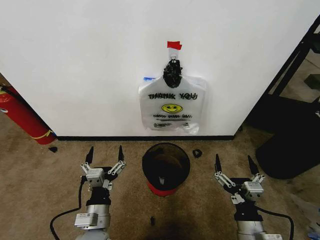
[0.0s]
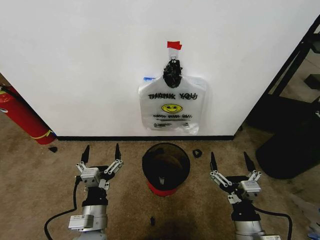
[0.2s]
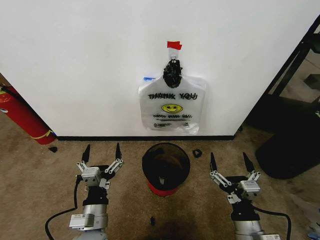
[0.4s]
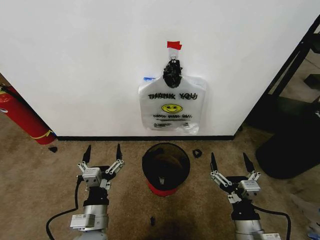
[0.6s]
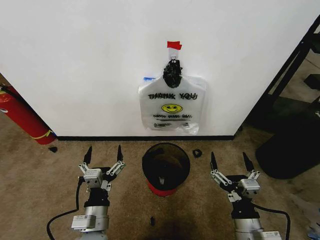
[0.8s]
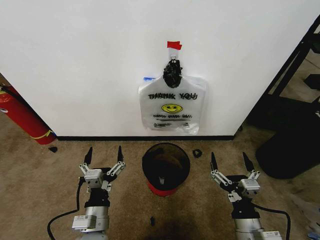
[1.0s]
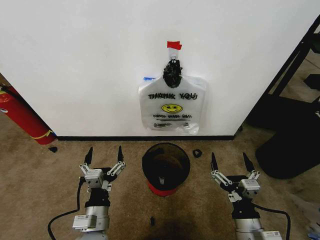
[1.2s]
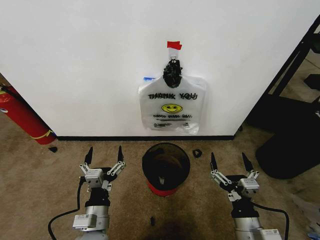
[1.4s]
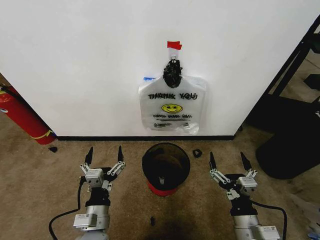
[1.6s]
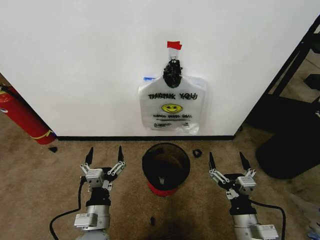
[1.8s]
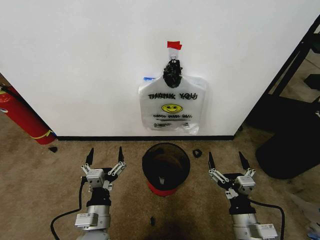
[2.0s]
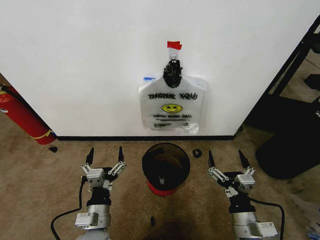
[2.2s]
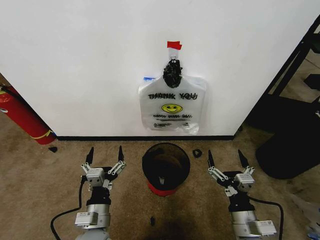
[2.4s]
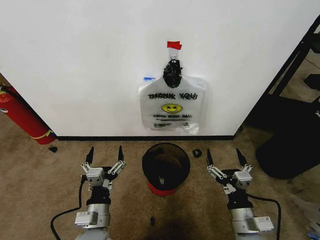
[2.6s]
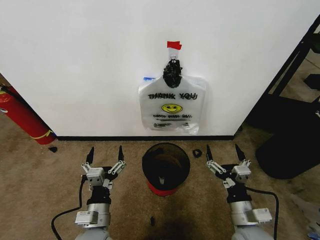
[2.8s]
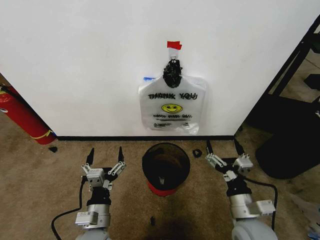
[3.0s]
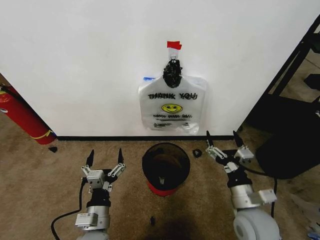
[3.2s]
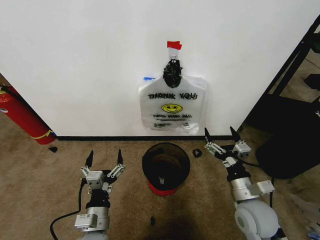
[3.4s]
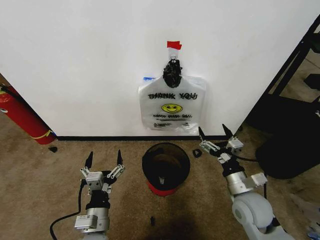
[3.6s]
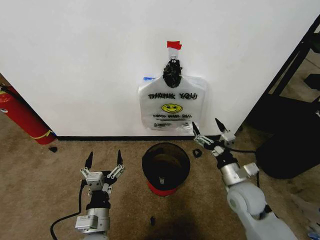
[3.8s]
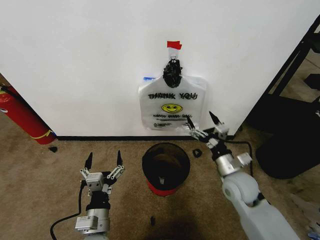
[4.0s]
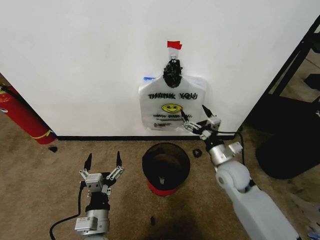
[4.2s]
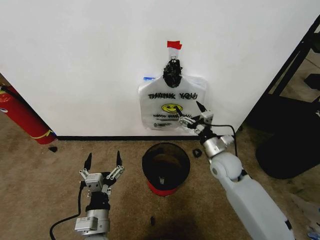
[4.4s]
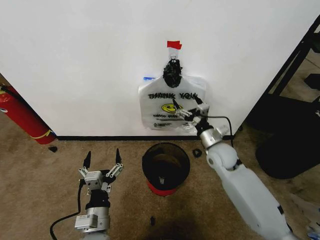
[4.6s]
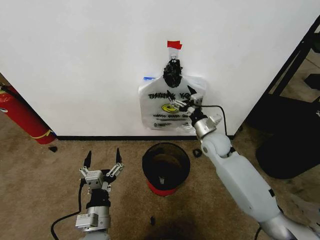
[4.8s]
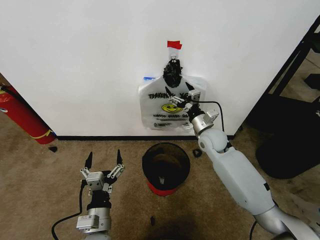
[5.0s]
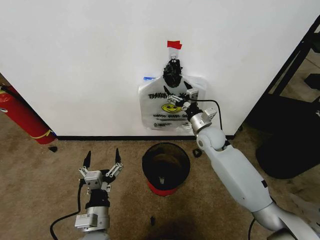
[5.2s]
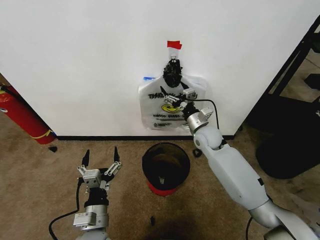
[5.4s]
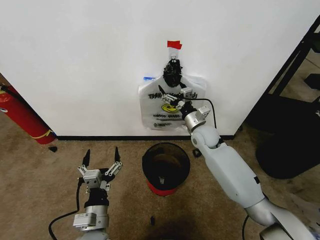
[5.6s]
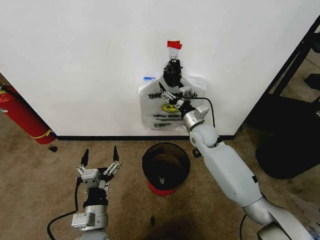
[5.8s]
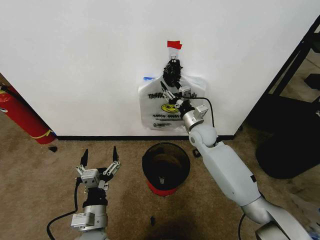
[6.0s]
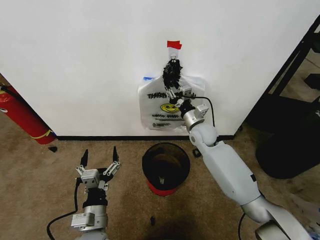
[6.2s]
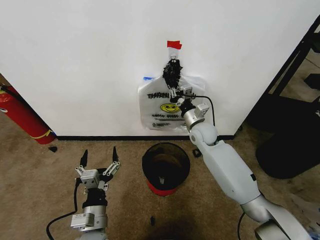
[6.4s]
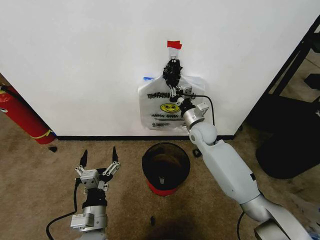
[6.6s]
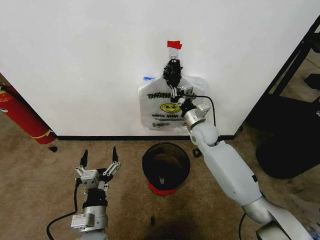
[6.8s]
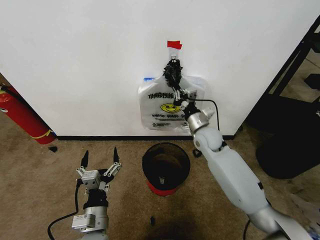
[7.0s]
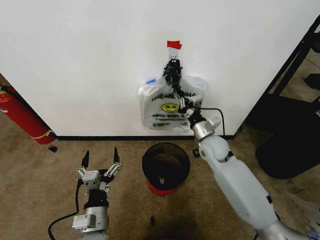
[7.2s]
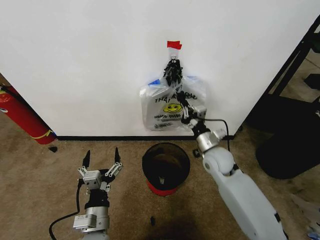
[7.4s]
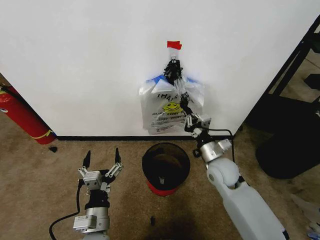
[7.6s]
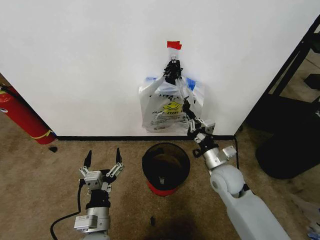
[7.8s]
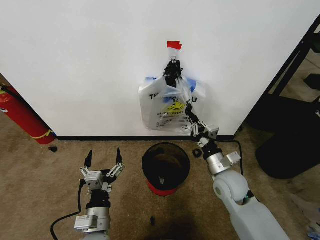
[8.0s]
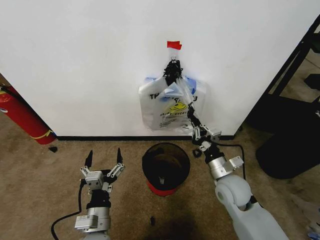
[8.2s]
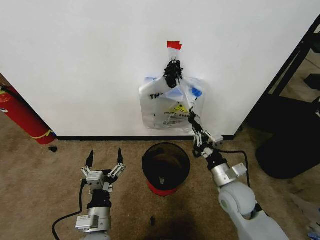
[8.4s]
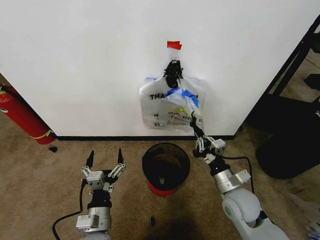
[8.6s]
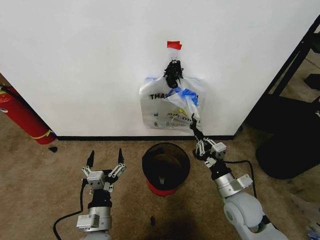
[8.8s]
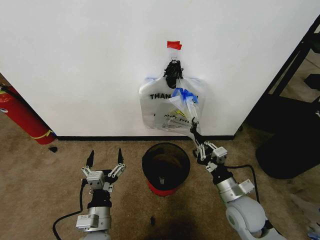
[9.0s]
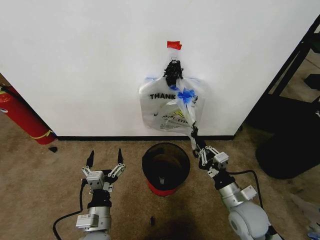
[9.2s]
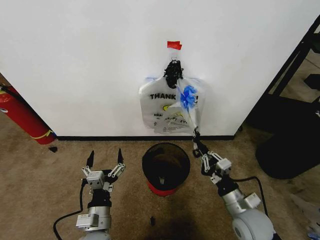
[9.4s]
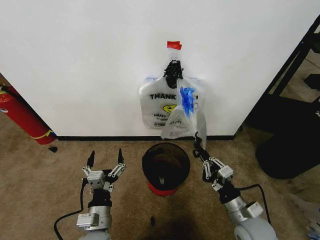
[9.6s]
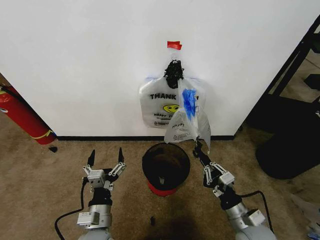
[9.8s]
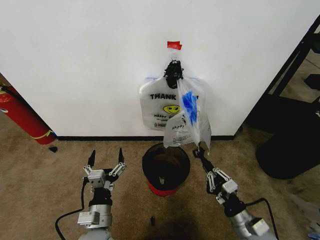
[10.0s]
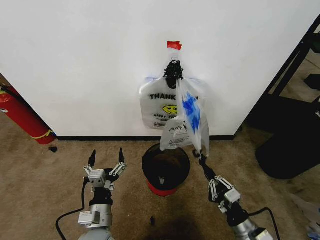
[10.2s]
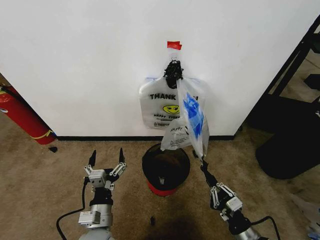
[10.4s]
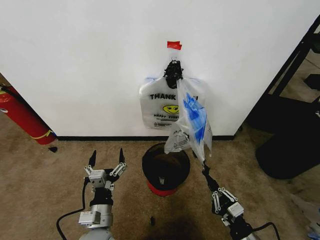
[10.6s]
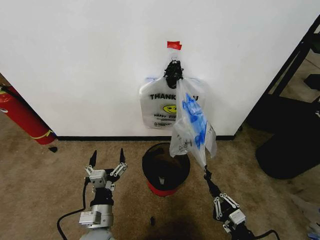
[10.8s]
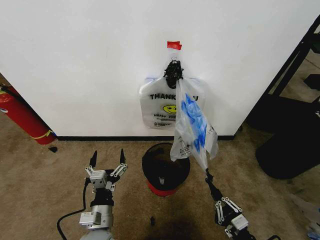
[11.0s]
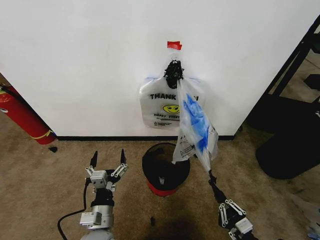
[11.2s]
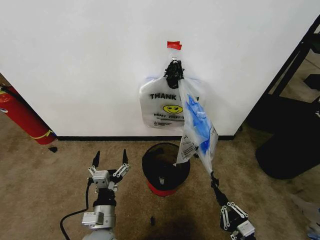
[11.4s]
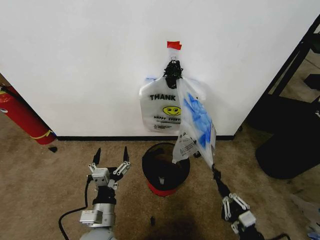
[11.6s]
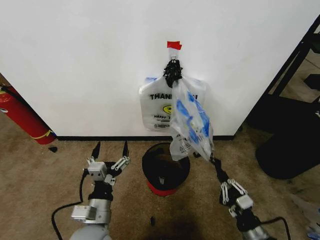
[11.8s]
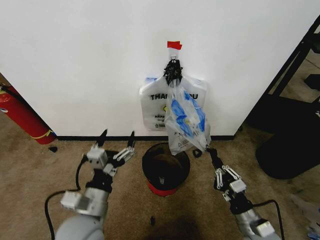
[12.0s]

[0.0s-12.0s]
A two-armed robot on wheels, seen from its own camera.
Task of the whole recording: Pick up the garbage bag from the wall and place it over the trash bin.
1.6s to 3.0s: The right gripper ends up about 5 cm from where it was.
3.0s to 4.4s: The right gripper moves forward, some 20 cm.
4.4s to 6.0s: The right gripper moves forward and to the left, roughly 10 cm, and closes up.
6.0s to 7.6s: The right gripper moves backward, roughly 10 cm, and closes.
7.6s to 9.0s: The right gripper is displaced backward by roughly 10 cm.
9.0s to 10.4s: The right gripper is displaced backward and downward by roughly 15 cm.
10.4s to 12.0s: The left gripper goes approximately 10 cm upward.

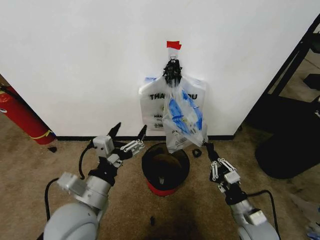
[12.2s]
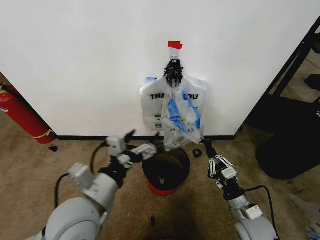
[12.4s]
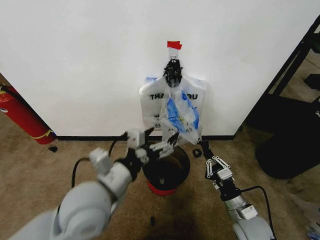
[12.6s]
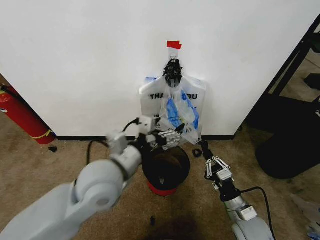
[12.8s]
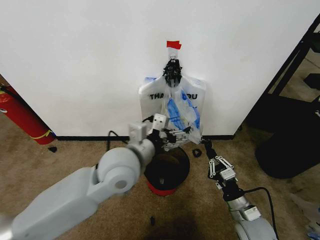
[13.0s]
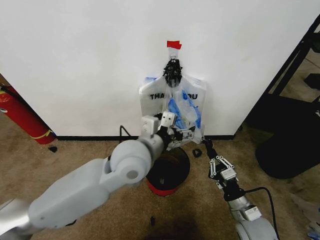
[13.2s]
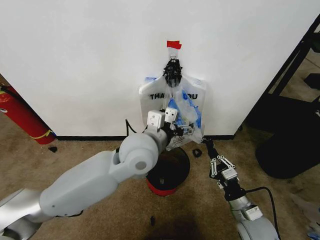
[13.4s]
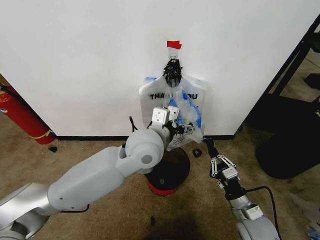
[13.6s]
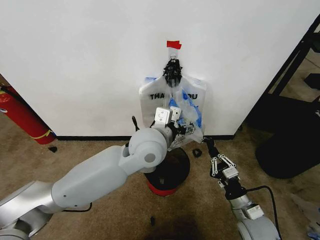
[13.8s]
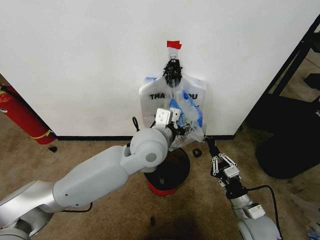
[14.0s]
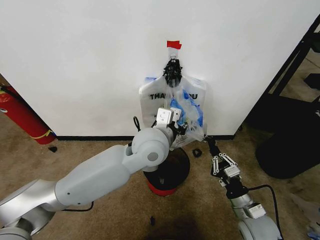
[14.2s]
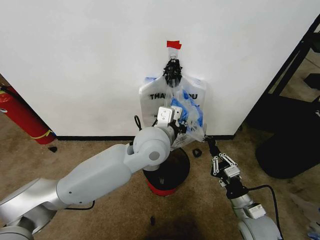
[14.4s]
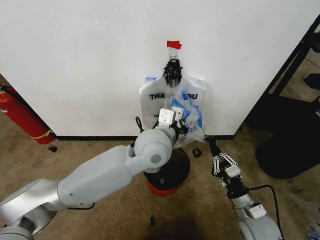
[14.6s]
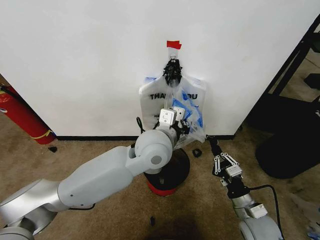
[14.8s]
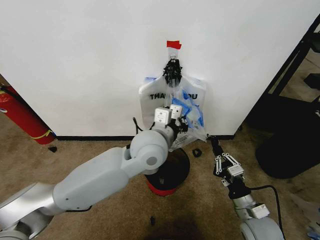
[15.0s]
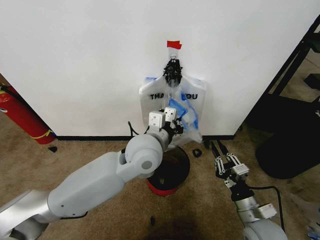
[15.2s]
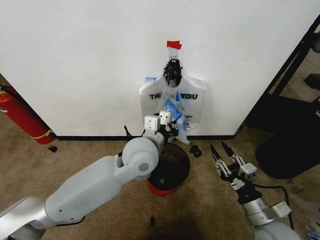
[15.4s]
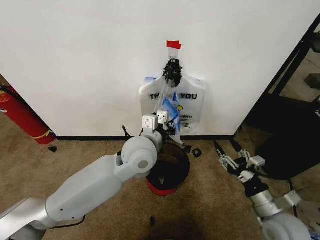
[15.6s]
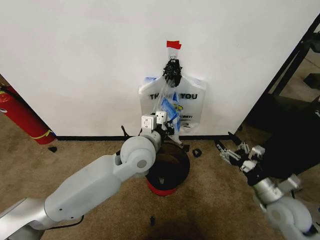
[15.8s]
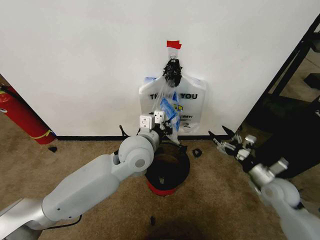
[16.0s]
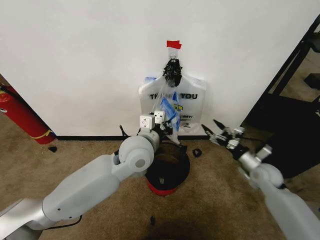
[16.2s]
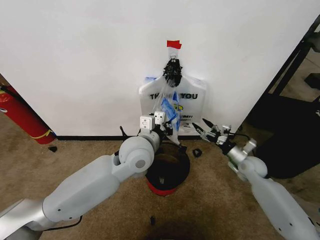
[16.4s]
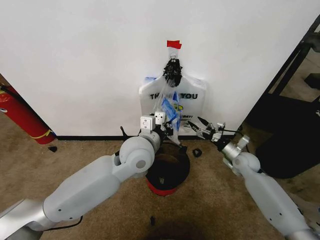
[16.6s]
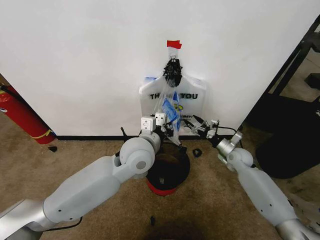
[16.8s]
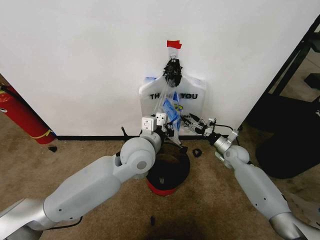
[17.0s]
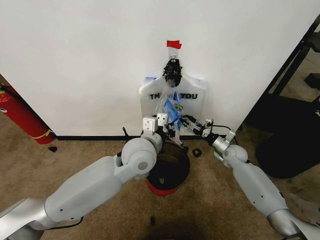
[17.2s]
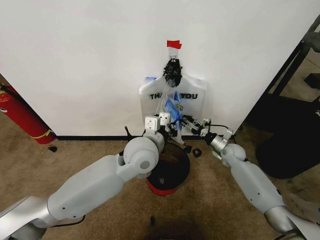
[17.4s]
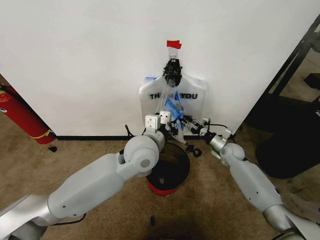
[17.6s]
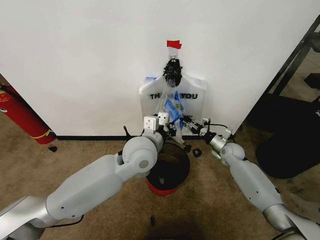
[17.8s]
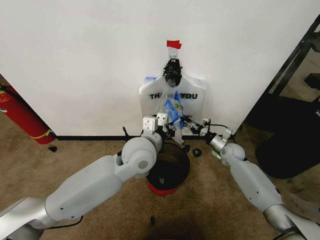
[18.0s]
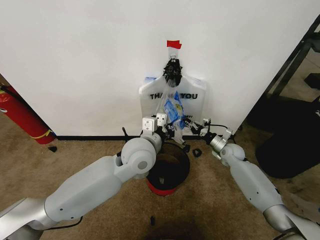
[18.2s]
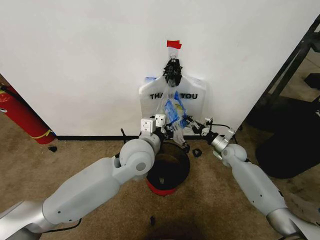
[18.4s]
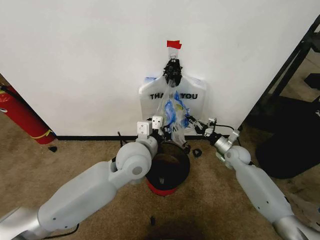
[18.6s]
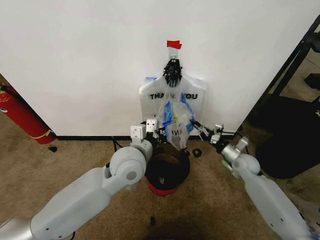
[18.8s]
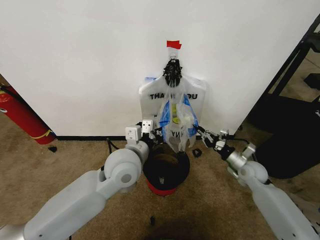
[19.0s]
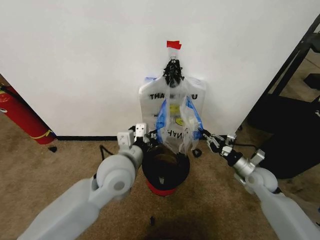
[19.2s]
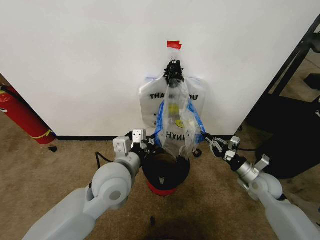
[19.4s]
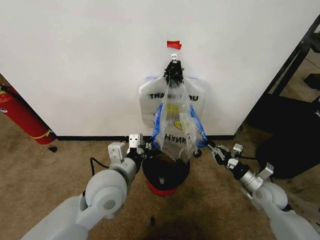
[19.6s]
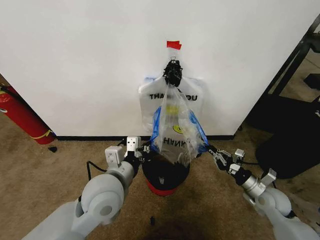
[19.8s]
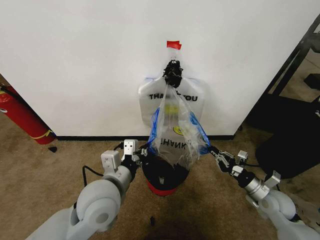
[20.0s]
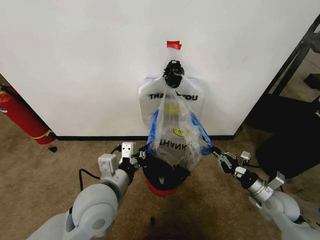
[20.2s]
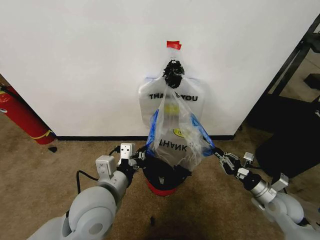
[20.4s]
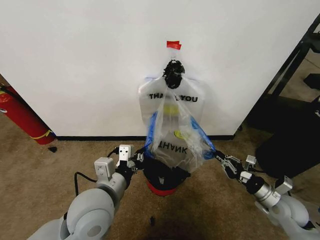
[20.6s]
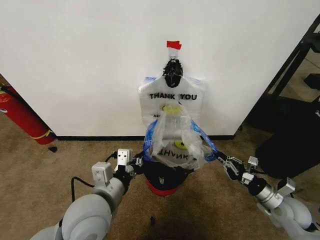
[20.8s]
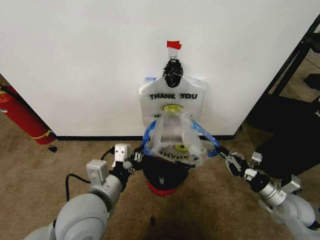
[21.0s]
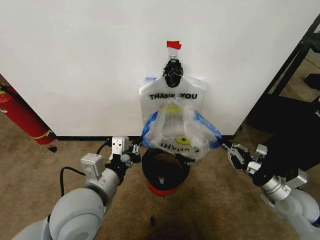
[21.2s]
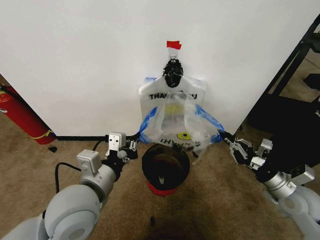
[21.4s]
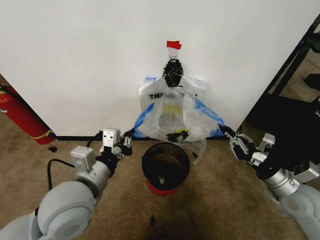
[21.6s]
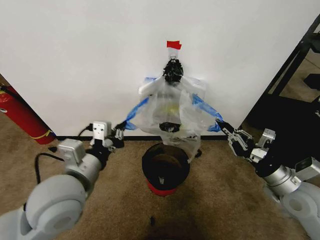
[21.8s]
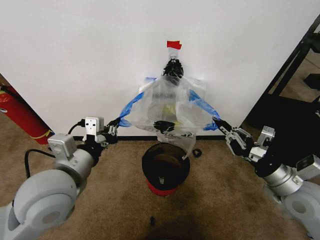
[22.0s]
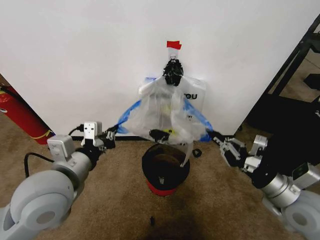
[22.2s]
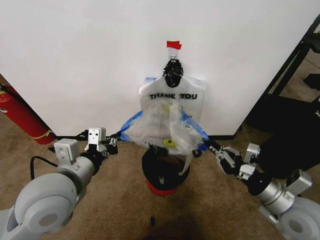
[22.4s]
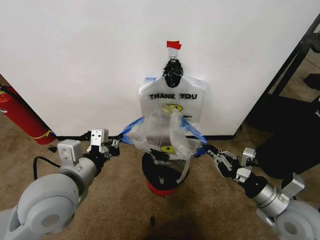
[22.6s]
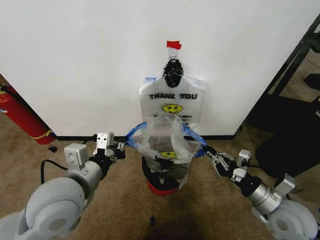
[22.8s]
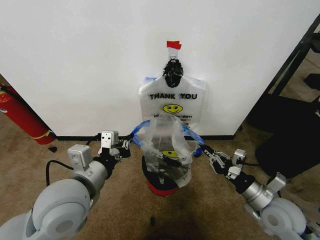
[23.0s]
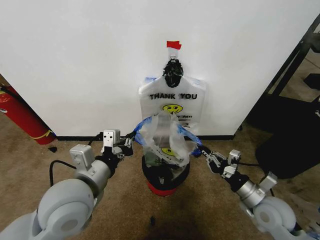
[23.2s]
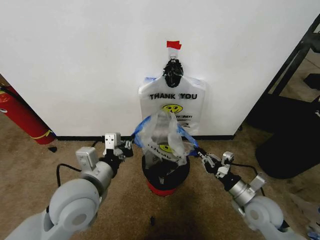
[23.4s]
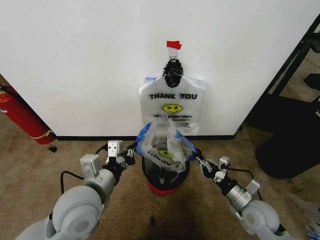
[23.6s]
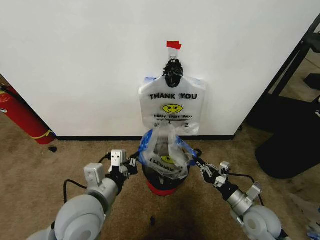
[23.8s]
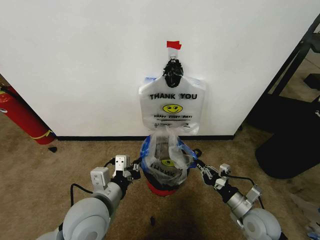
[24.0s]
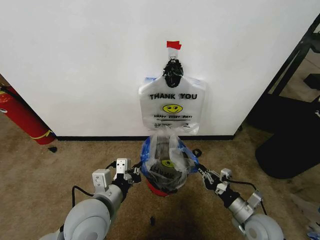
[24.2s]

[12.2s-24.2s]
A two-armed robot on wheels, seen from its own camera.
Task of the whole recording: Pick up the garbage bag from the wall and place it over the trash bin.
12.2s to 13.8s: The left gripper shifts some 25 cm forward, to the right and upward.
13.8s to 15.2s: The left gripper closes its fingers.
15.2s to 16.6s: The right gripper moves forward, roughly 25 cm, and opens up.
16.6s to 18.2s: The right gripper goes about 5 cm forward, and closes up.
18.2s to 19.8s: The right gripper shifts roughly 20 cm backward, while the left gripper goes approximately 10 cm backward and to the left.
19.8s to 21.2s: The left gripper goes roughly 5 cm backward. The right gripper moves upward, some 5 cm.
21.2s to 22.6s: The left gripper changes place by about 5 cm, while the right gripper is displaced to the left, upward and backward by roughly 10 cm.
22.6s to 24.2s: The grippers both shift downward by roughly 10 cm.
